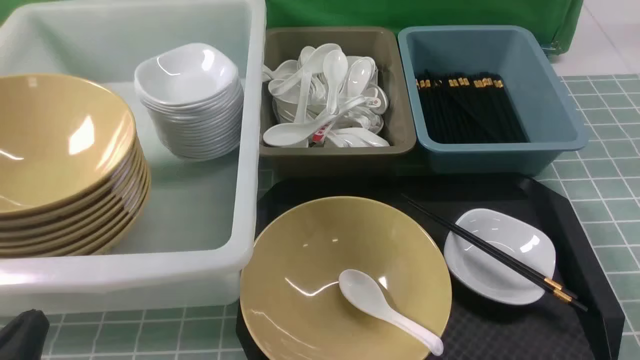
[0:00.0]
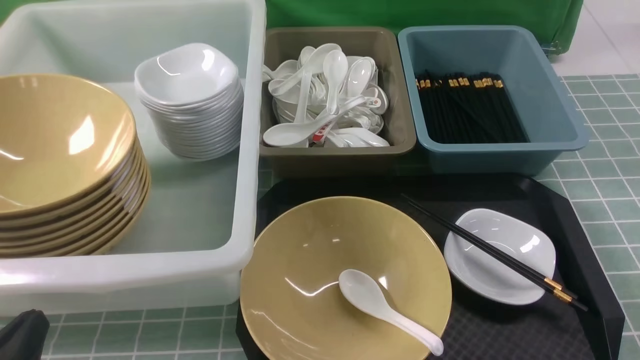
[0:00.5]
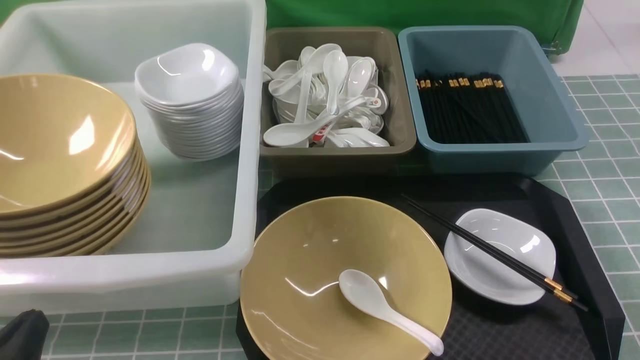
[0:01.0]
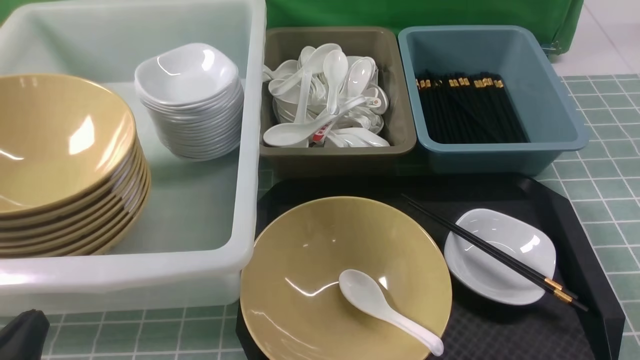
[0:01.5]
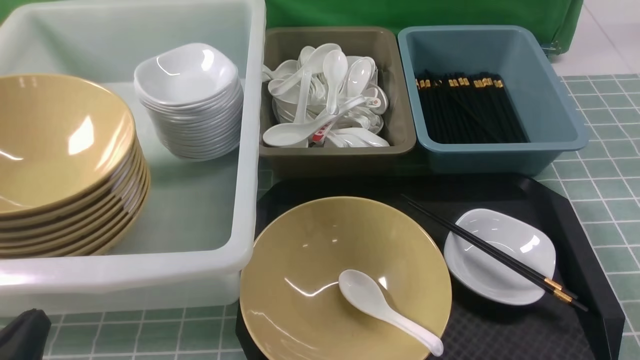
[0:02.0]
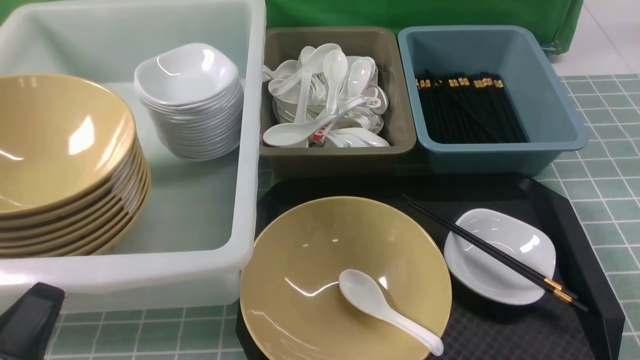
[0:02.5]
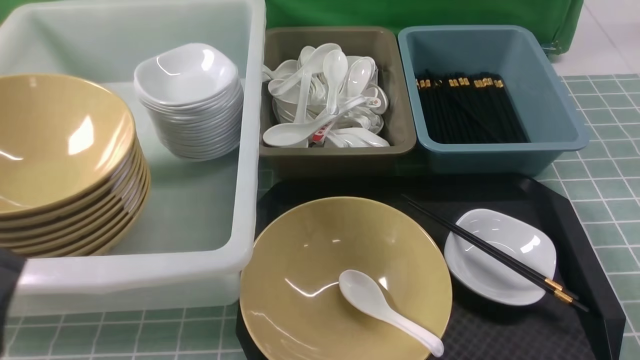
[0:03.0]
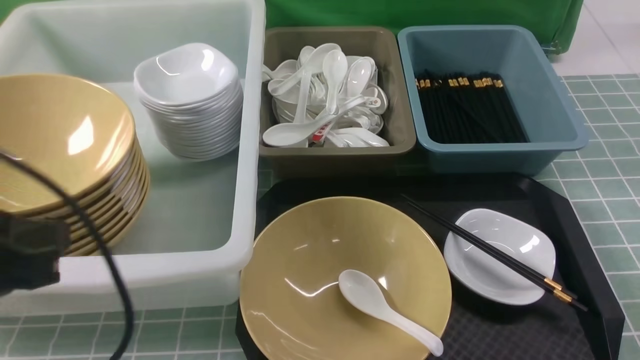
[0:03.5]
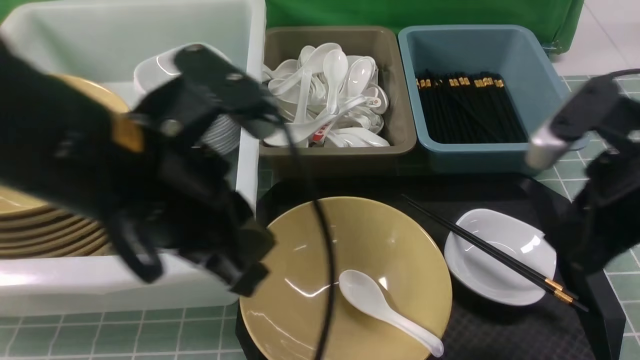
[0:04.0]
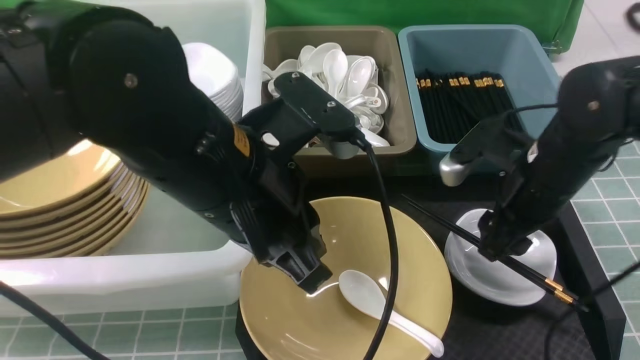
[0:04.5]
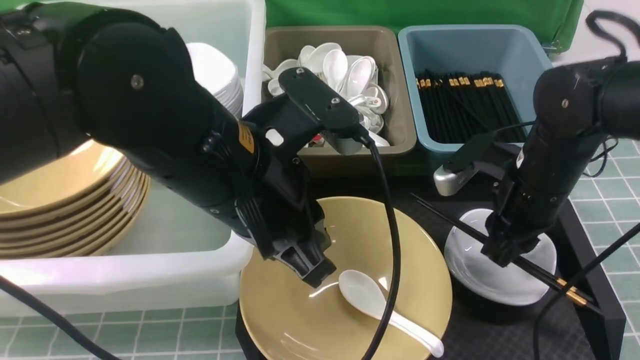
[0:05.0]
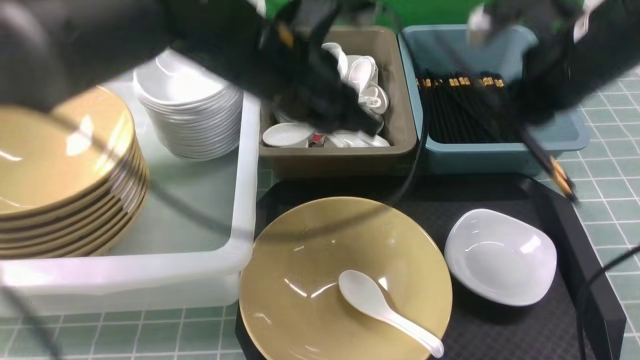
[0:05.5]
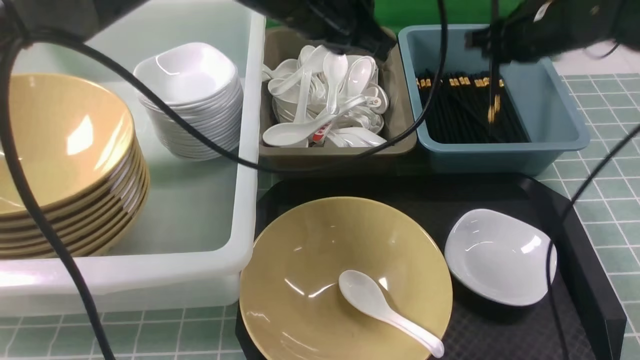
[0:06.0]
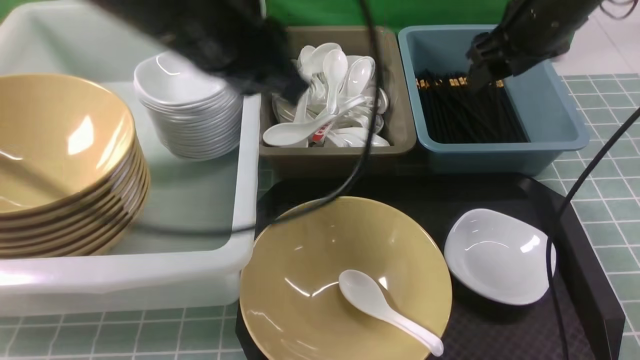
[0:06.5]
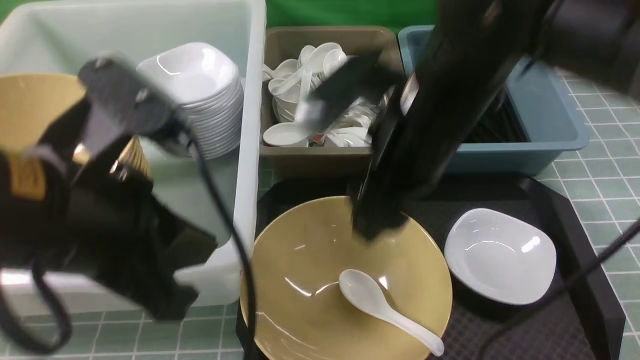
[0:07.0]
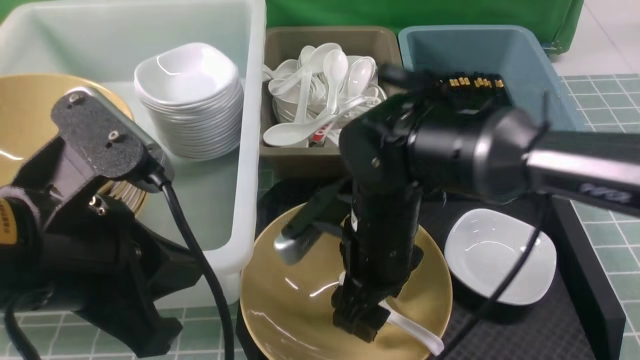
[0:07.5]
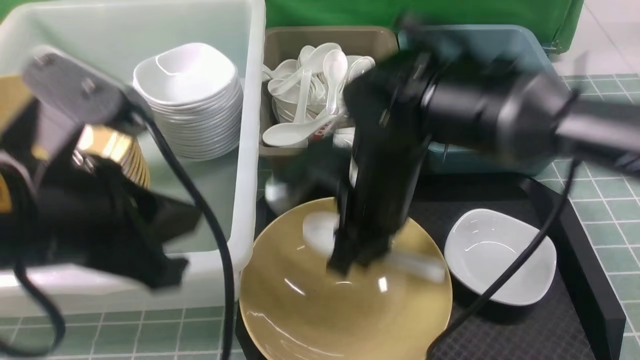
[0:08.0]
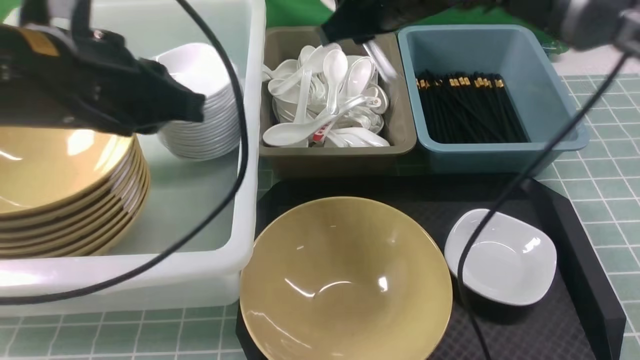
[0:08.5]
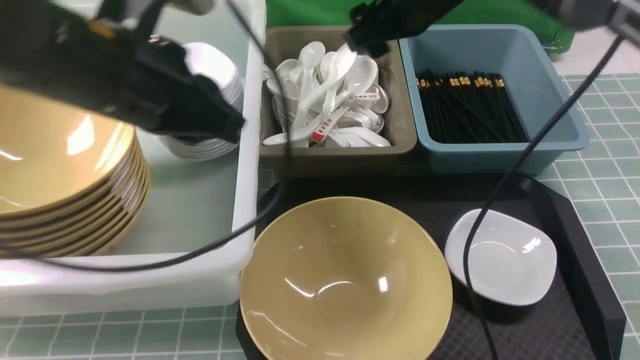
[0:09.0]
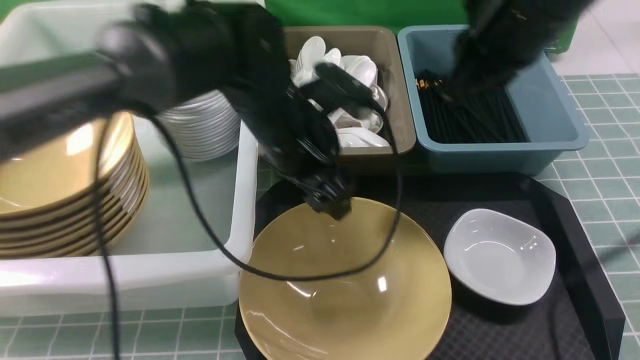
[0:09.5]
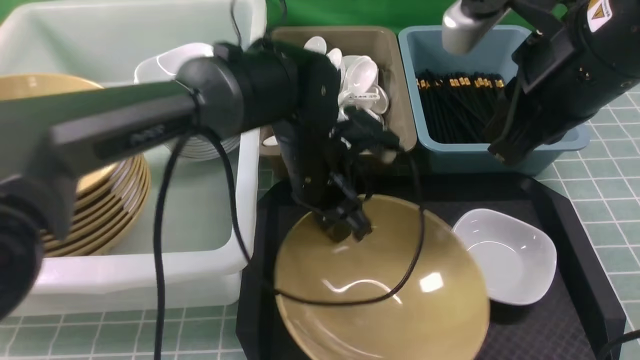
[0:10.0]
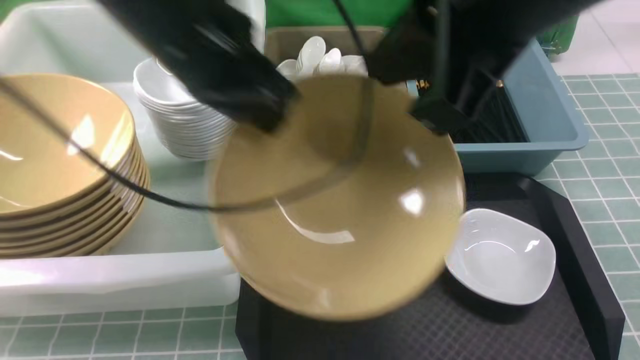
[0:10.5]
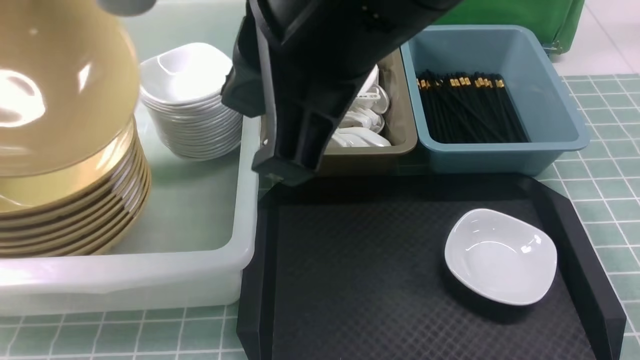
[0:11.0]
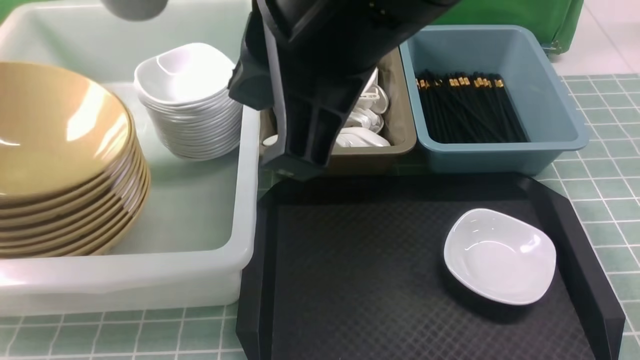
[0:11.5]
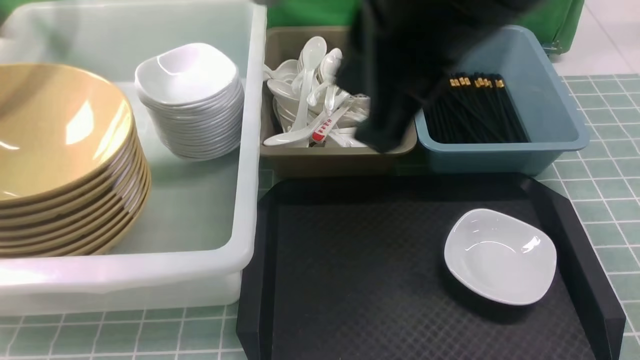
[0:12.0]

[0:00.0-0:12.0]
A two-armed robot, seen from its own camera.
Task of the whole recording: on blue table put chopsticks spoon bowls plates into blue grey white boxes.
Step, 0:00.0 to 0:05.0: use the right arm to grab the chopsticks.
Step, 0:05.5 to 0:06.5: use the right arm to put the chopsticks into the small storage box on the right.
Step, 0:07.0 to 0:07.5: use the right arm to grab the soup spoon in the middle.
Step, 0:08.0 to 0:08.5: use the right arm to put the soup spoon into the small storage box in the middle.
Step, 0:09.5 to 0:10.0: use the left arm to grab the yellow noodle bowl on the left.
Step, 0:10.5 to 0:11.5: use the left arm to put the noodle bowl into the large storage box on the left.
0:02.0 to 0:04.0: The right gripper moves forward, upward and to the left, some 25 cm, while the left gripper is displaced upward, to the right and forward by about 25 cm.
0:04.0 to 0:06.0: The left gripper shifts about 15 cm forward and to the right. The right gripper moves forward, about 25 cm.
0:06.0 to 0:08.0: The left gripper travels backward and to the left by about 20 cm. Meanwhile the right gripper goes roughly 25 cm to the left and backward, and opens and closes again.
0:08.0 to 0:10.0: The right gripper travels upward and to the right by about 15 cm, moves about 10 cm forward and comes back, and closes up, while the left gripper shifts roughly 25 cm forward, to the right and downward, and opens and closes again.
0:10.0 to 0:12.0: The left gripper heads to the left and upward, covering roughly 30 cm, and opens; the right gripper travels to the left and upward by approximately 10 cm.

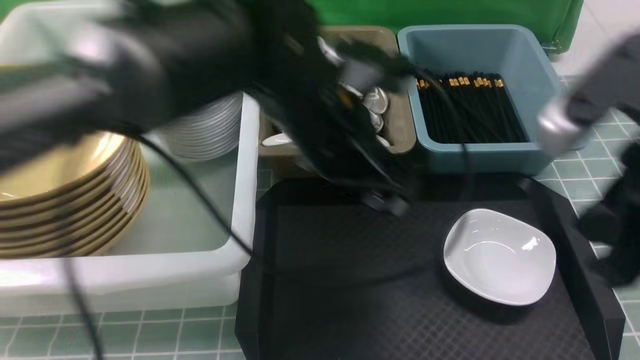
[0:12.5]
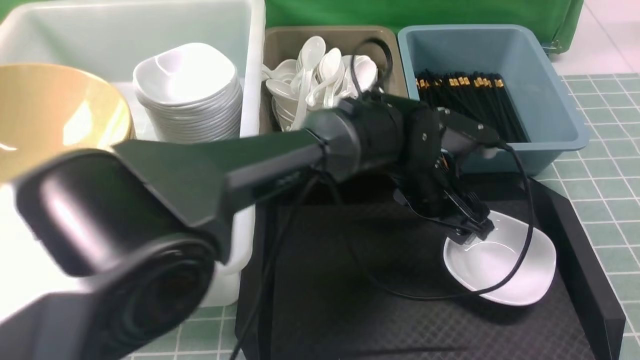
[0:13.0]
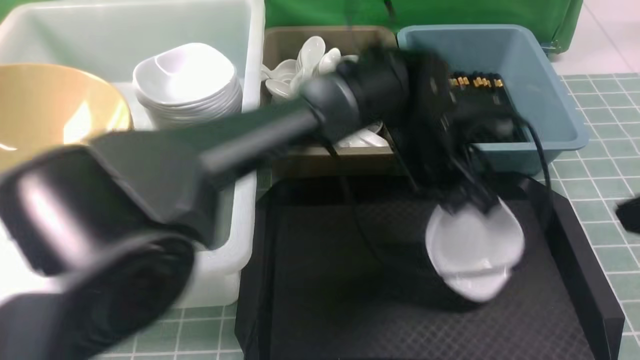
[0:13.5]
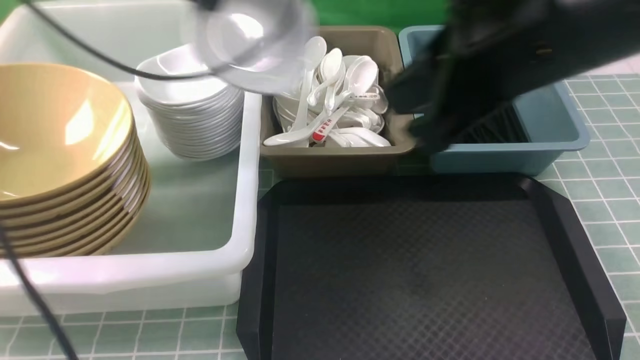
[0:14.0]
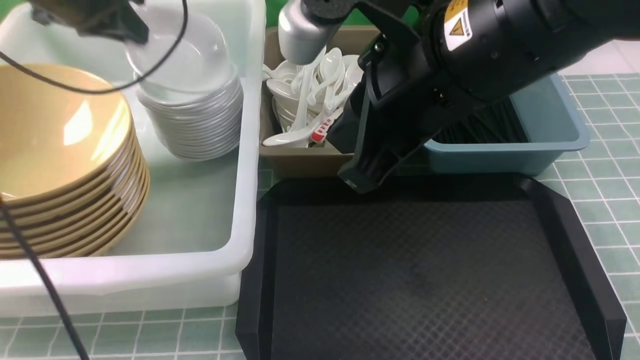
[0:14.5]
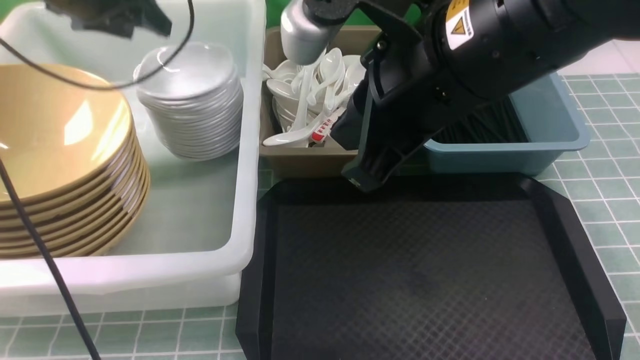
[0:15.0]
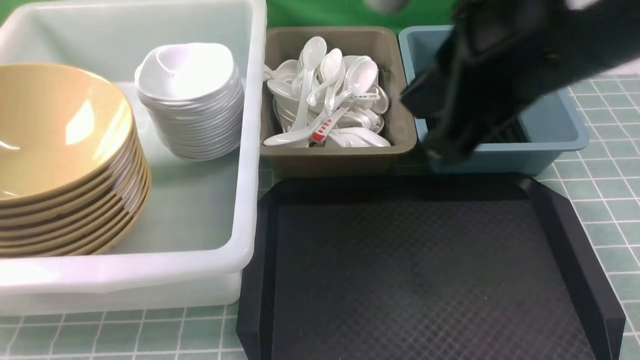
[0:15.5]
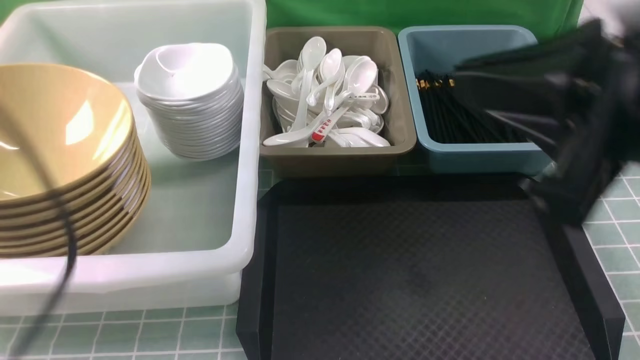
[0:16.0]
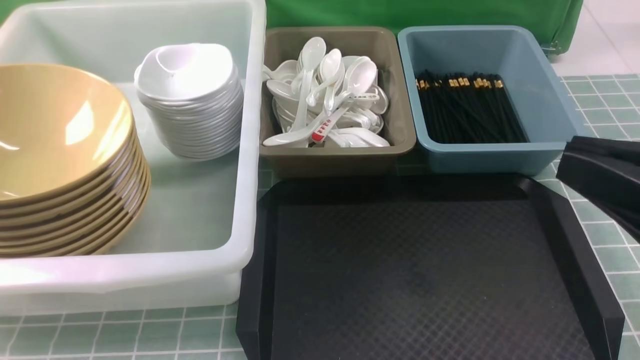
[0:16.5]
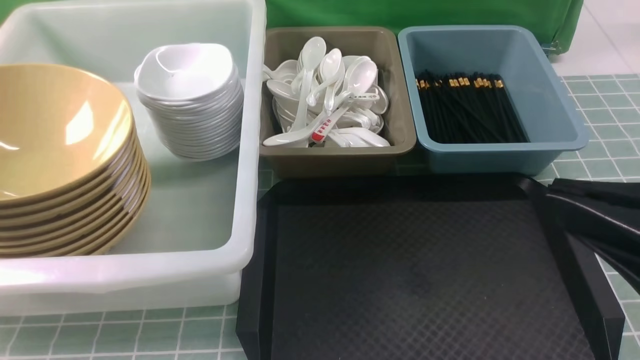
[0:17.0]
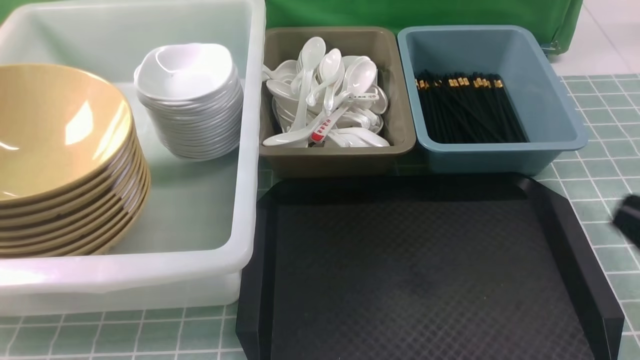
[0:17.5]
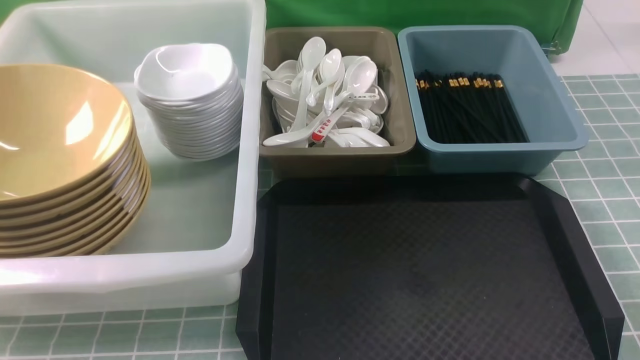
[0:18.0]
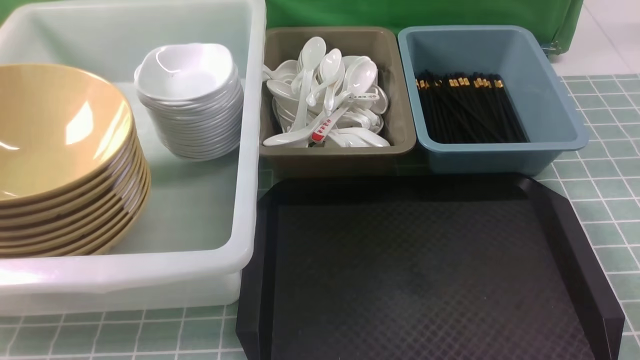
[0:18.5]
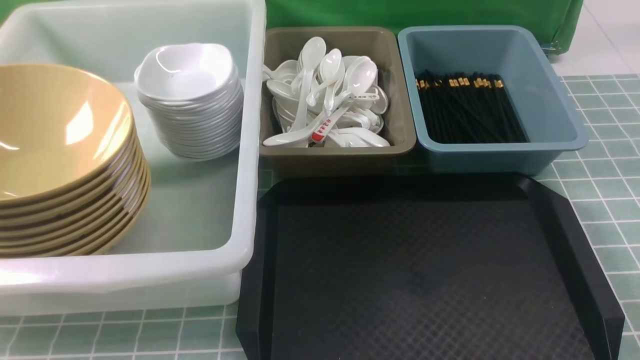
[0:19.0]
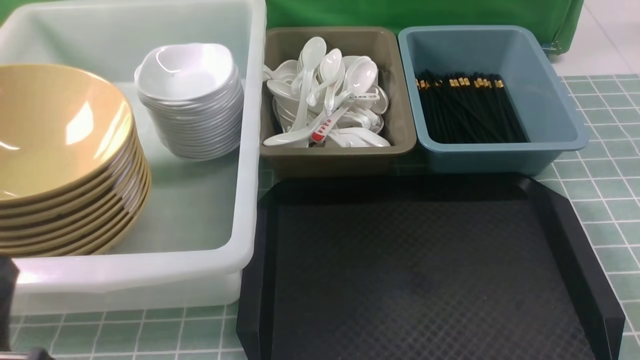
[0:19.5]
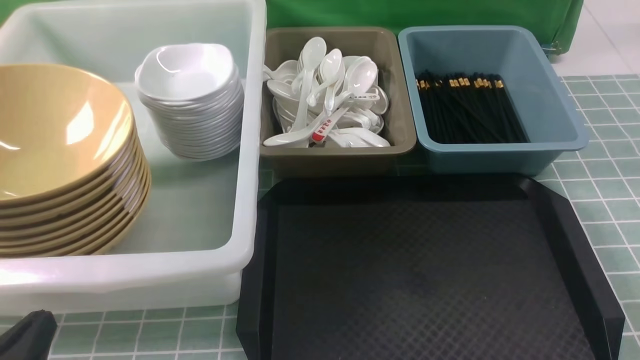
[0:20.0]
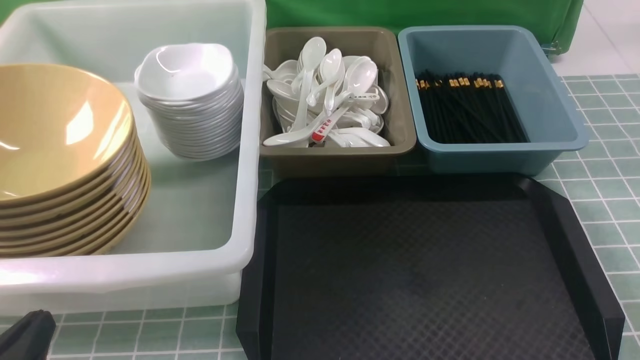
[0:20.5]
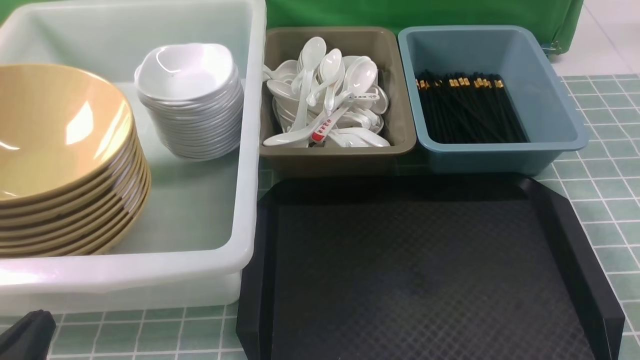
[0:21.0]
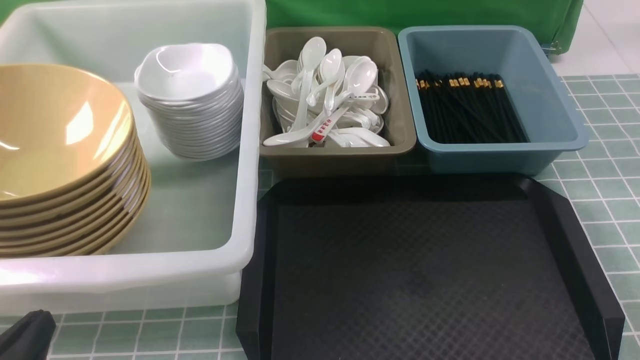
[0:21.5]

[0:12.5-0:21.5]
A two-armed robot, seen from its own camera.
Task of the whole recording: on blue table put chopsticks spoon bowls plates into blue grey white boxes.
Step, 0:12.5 to 0:13.5: use the left arm to grab the plate.
Step, 0:14.0 to 0:15.0: use the left arm to put the plate into the large storage box on the left.
0:12.5 to 0:14.5: The left gripper moves to the left and forward, some 30 cm, and closes up. Meanwhile the right gripper moves to the left and forward, some 15 cm.
0:14.5 to 0:17.0: The right gripper moves backward and to the right, about 20 cm. The left gripper heads backward, covering about 40 cm, and opens, then closes once more.
0:17.0 to 0:19.5: The left gripper is displaced downward by about 5 cm, while the right gripper heads downward and to the right, covering about 20 cm.
0:19.5 to 0:21.5: The grippers stay close to where they were, moving slightly.
